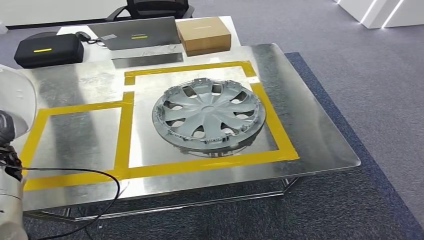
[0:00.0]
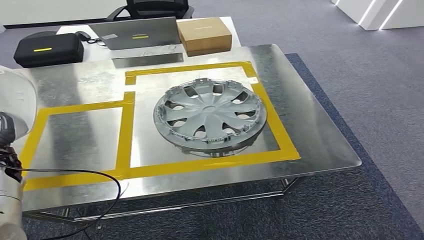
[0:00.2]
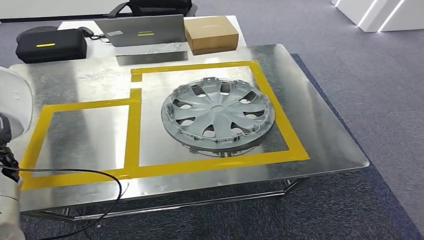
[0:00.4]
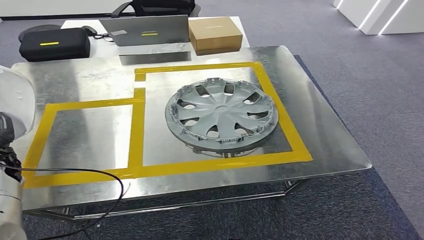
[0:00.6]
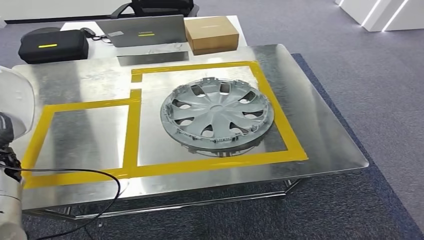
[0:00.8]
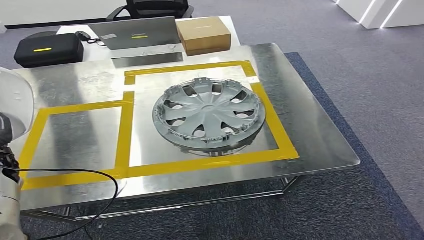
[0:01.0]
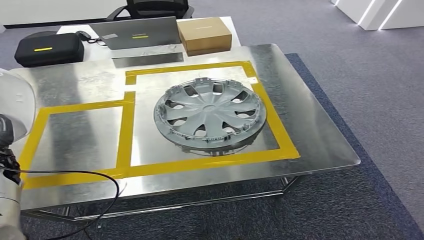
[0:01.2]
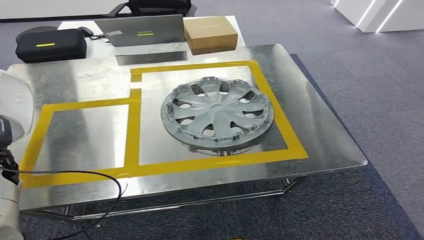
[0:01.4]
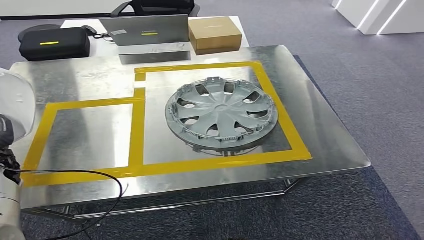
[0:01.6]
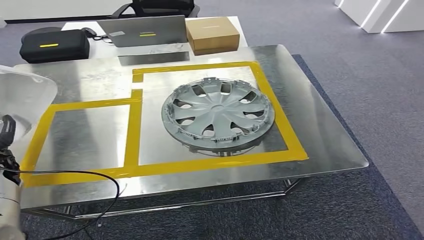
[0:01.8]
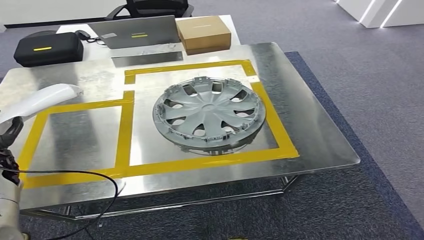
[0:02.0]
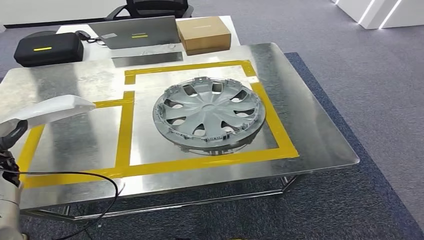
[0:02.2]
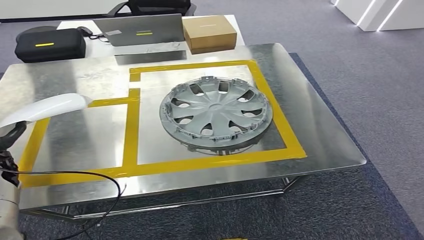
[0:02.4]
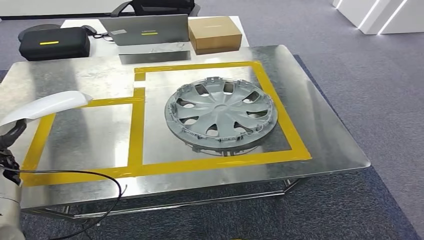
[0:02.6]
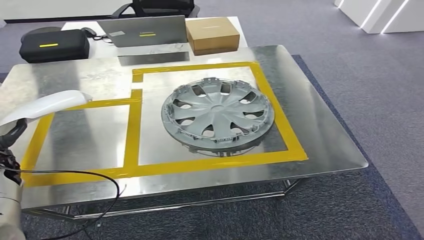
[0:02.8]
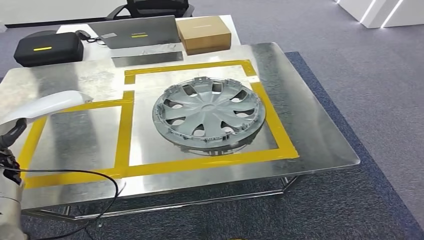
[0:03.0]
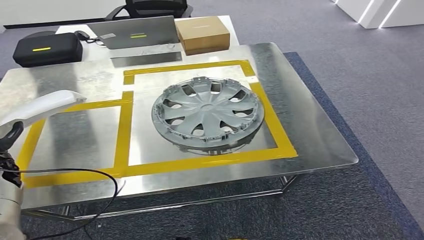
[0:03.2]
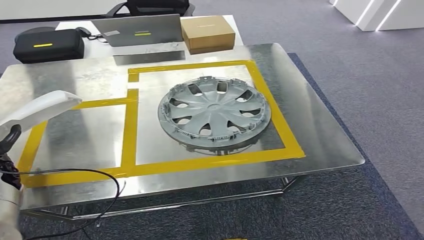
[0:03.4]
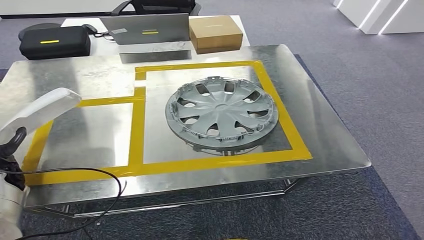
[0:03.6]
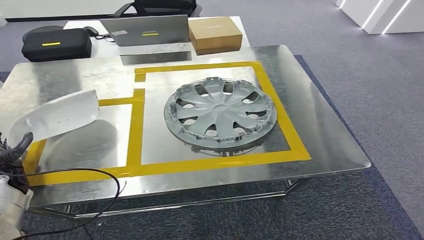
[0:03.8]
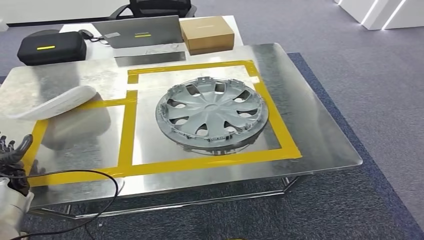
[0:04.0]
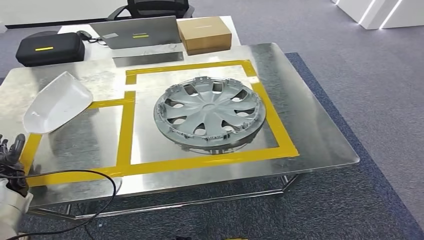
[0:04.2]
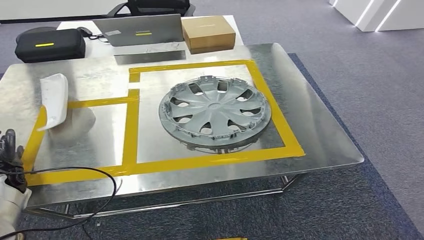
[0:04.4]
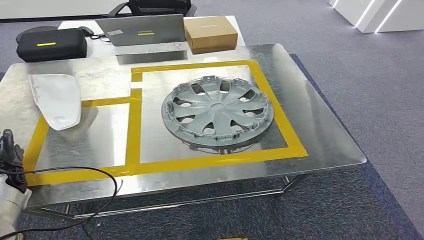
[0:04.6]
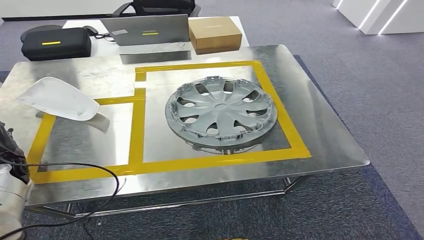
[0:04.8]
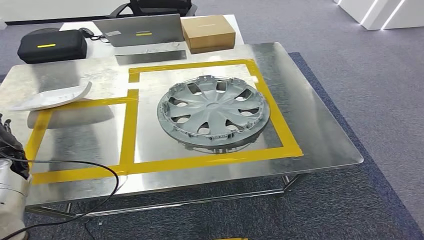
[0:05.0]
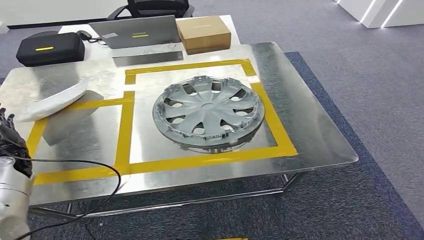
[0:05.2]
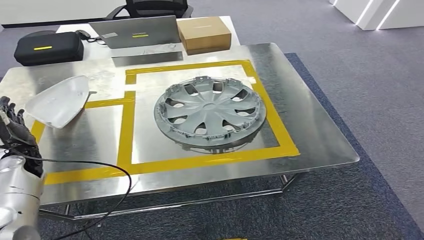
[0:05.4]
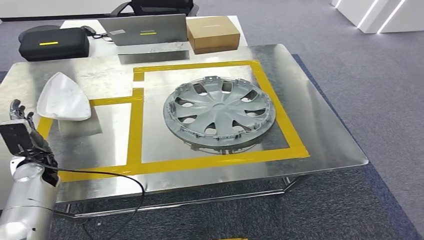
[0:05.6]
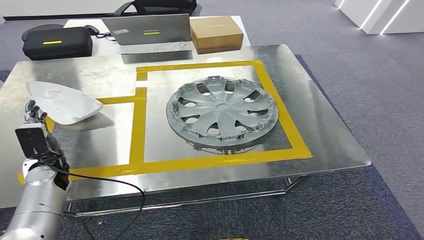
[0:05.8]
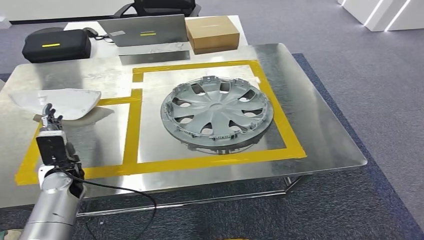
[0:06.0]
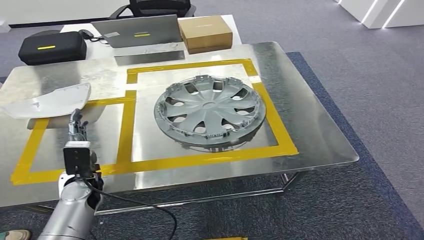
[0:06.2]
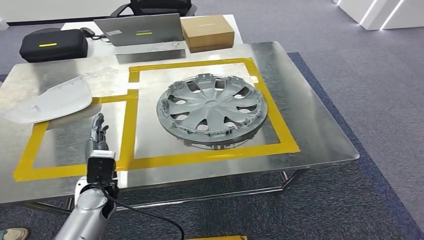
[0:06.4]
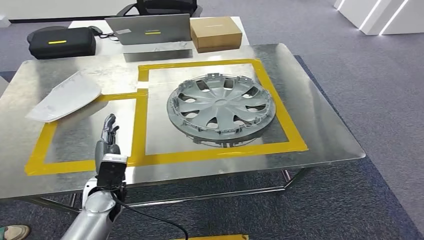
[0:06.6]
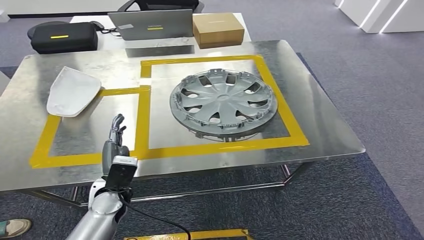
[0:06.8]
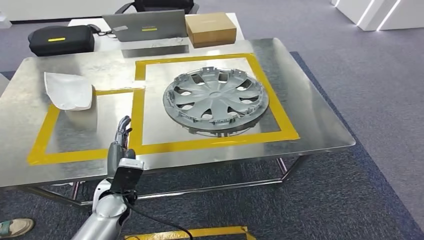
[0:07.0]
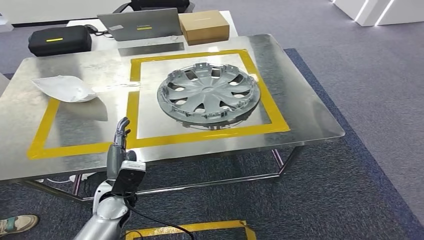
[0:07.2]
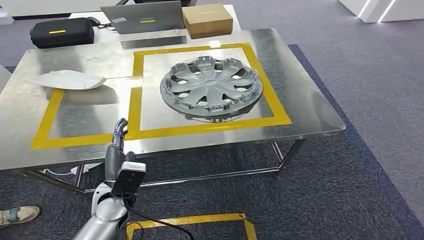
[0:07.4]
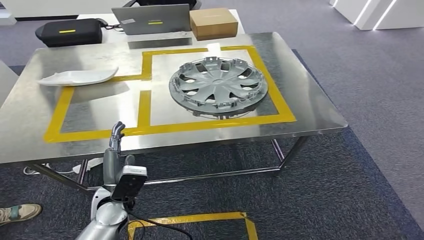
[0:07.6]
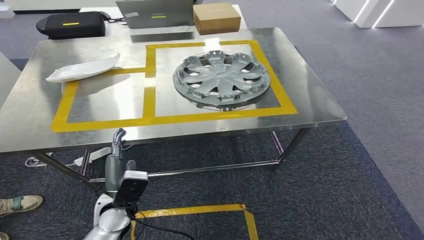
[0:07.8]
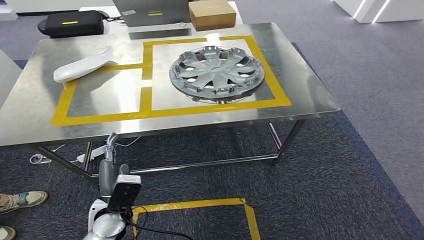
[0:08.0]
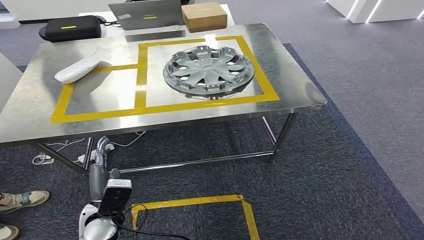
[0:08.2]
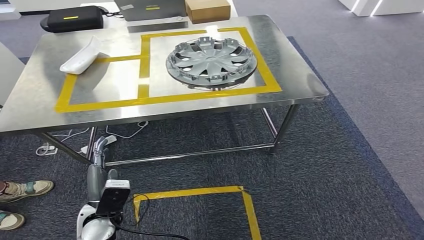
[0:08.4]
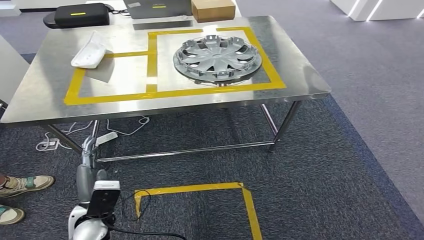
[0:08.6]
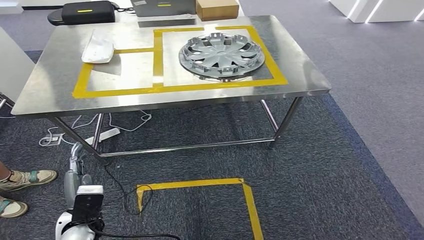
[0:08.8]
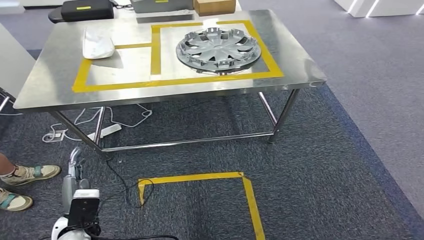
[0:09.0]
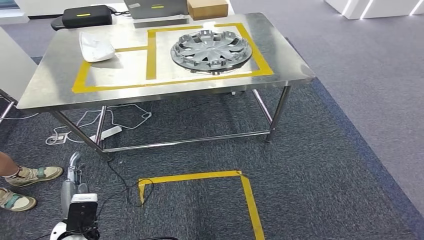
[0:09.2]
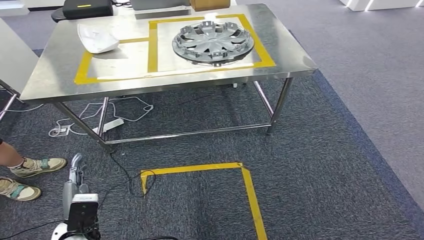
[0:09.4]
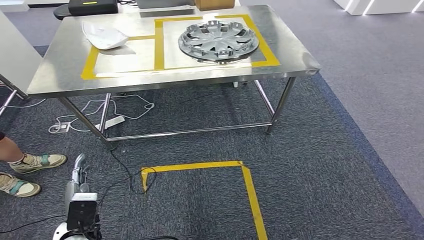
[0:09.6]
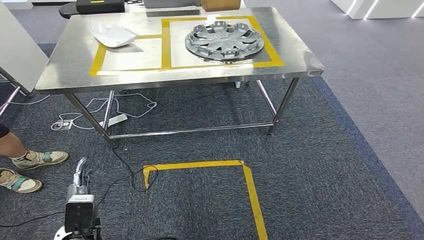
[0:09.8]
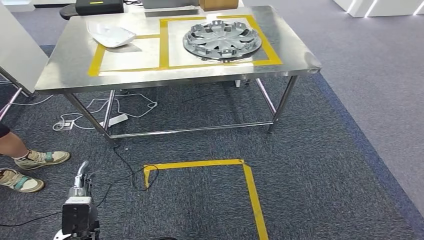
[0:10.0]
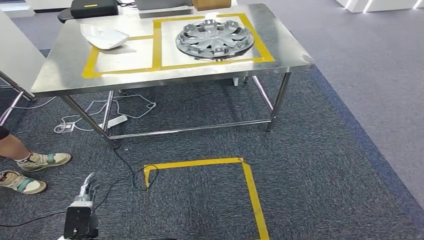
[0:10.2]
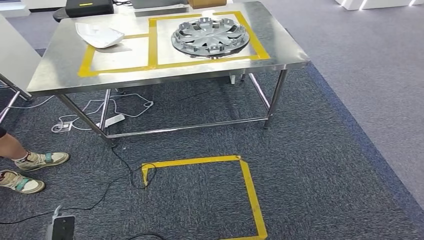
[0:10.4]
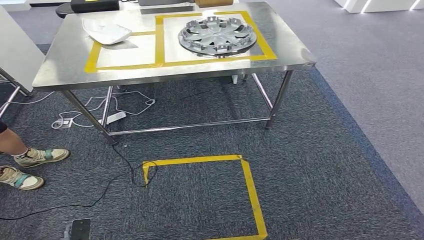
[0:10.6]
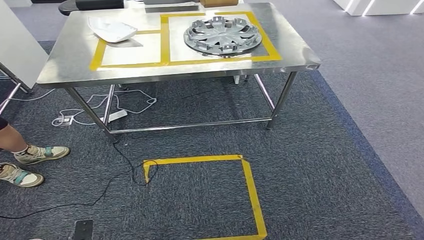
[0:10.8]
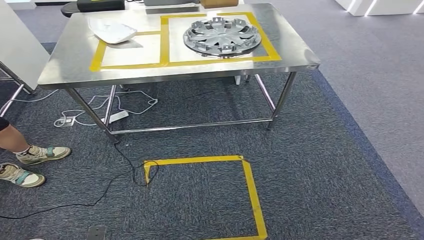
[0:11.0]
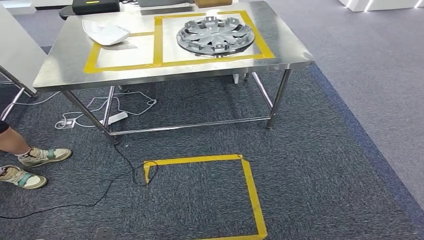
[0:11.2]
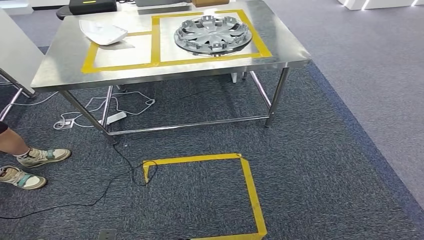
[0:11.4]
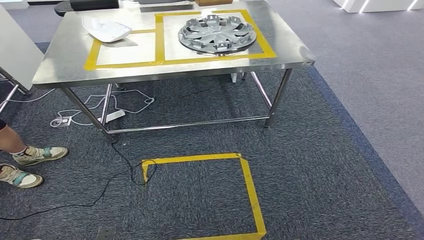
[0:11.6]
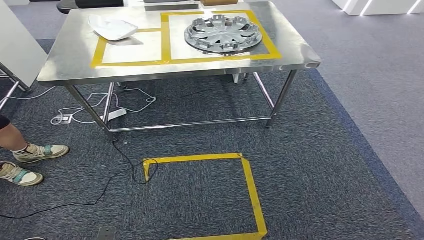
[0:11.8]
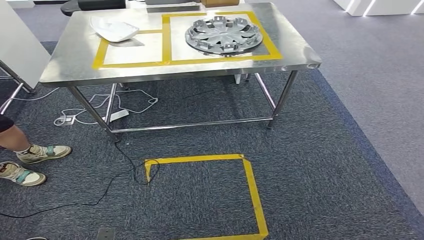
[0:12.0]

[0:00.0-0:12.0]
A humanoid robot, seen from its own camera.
Step, 0:00.0 to 0:06.2: Insert the small parts into the corresponding holes on the workbench.

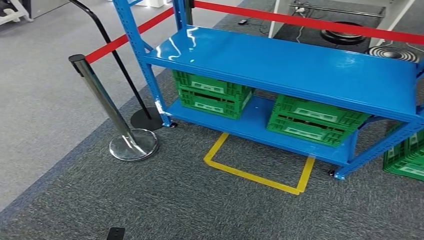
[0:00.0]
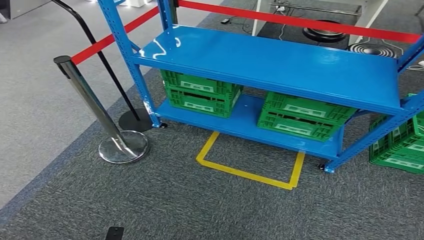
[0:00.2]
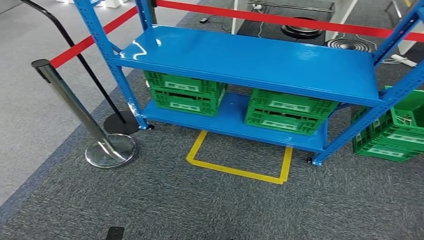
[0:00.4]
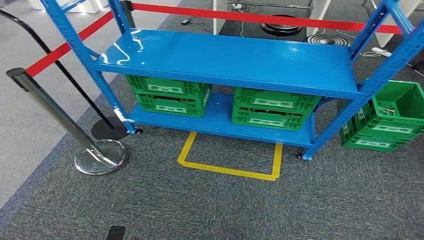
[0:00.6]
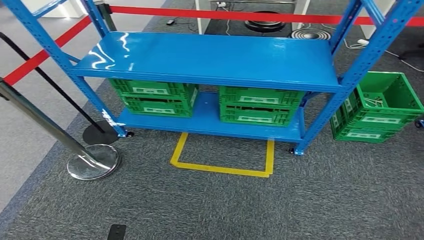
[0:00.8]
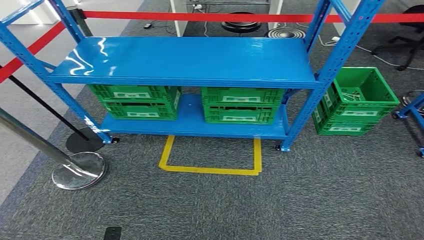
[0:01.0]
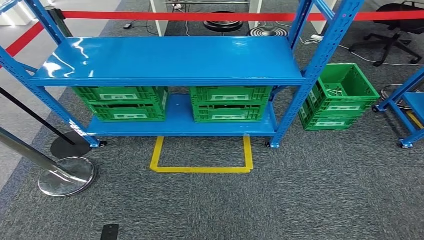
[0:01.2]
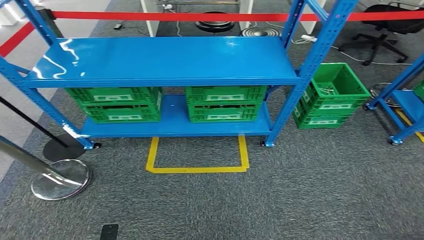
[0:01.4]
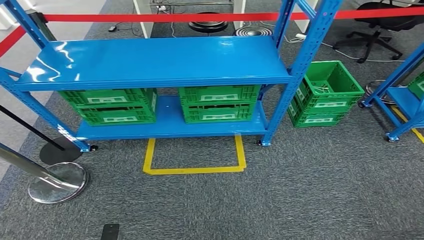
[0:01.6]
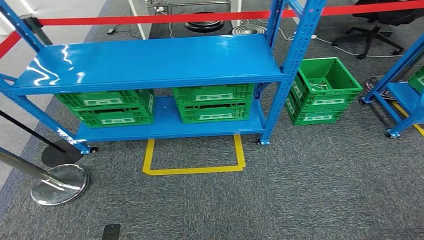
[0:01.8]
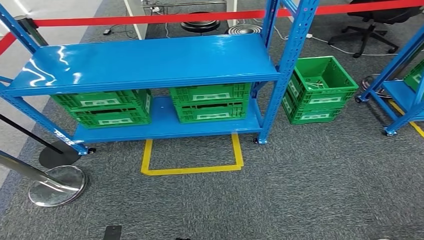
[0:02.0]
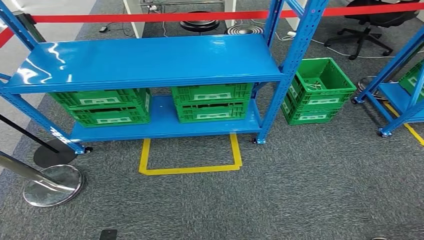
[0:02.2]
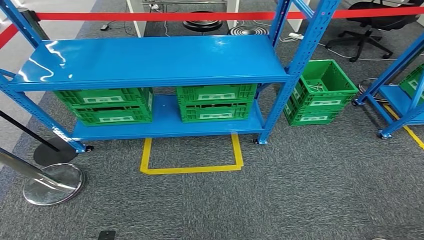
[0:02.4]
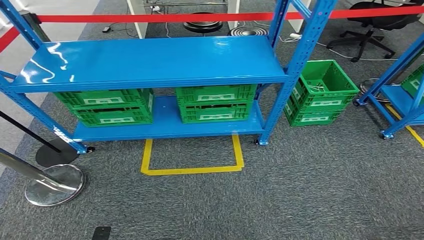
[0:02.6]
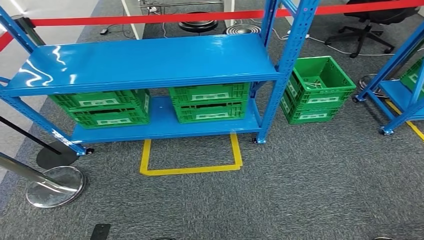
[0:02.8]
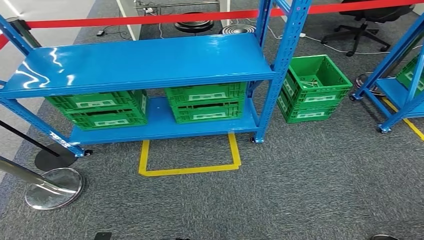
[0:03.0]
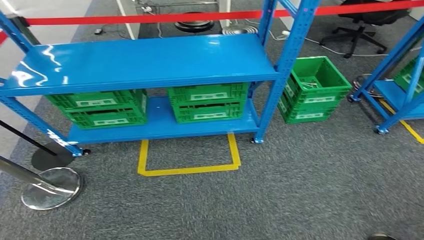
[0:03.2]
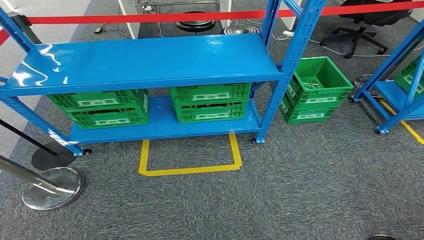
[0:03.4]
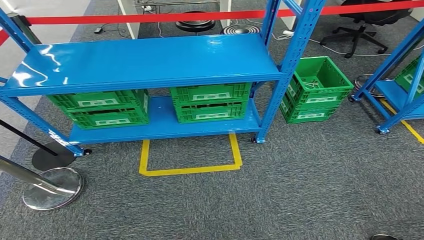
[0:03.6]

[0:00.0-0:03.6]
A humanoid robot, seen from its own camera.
Step, 0:00.0 to 0:03.6: Move to the initial position at the workbench.
